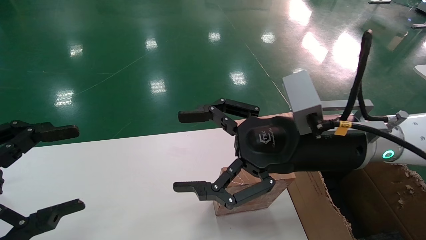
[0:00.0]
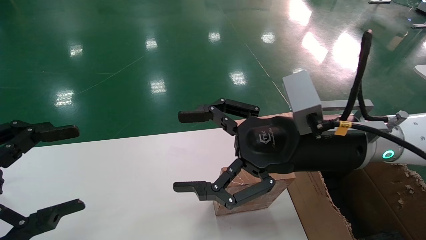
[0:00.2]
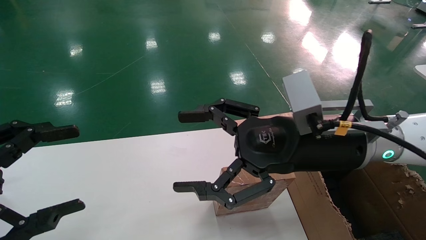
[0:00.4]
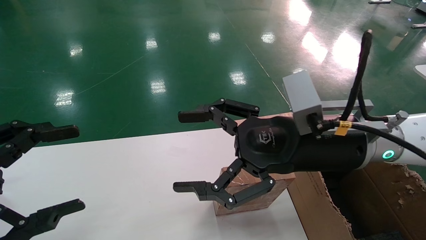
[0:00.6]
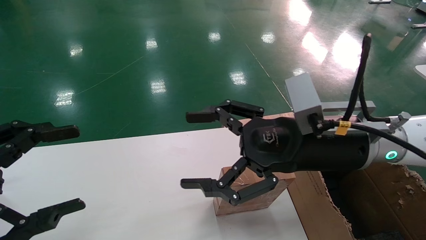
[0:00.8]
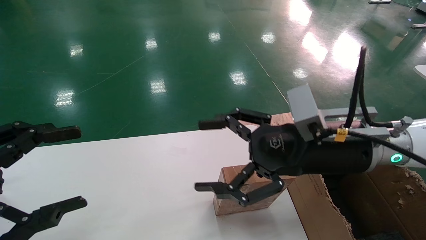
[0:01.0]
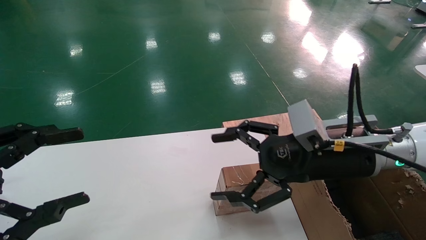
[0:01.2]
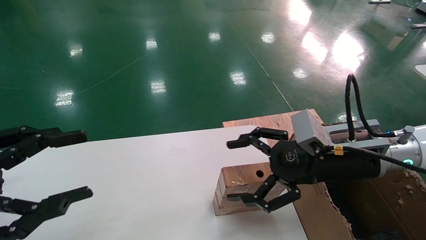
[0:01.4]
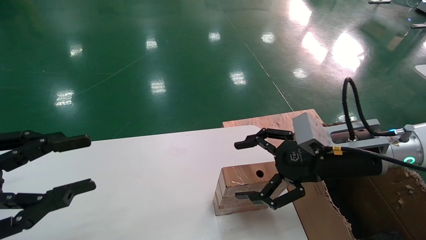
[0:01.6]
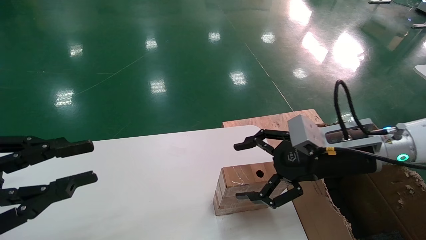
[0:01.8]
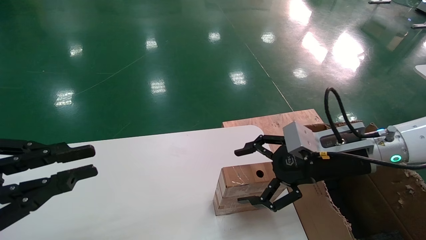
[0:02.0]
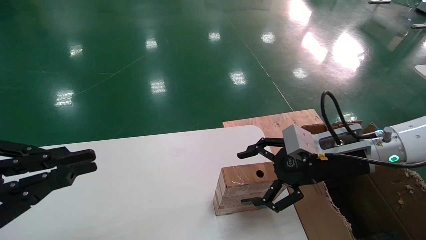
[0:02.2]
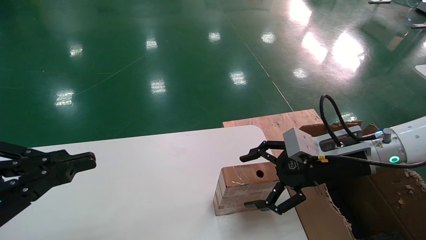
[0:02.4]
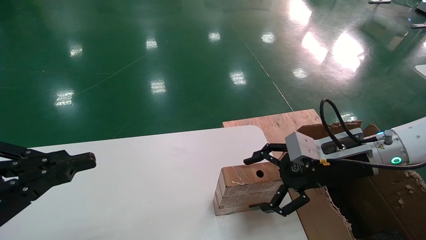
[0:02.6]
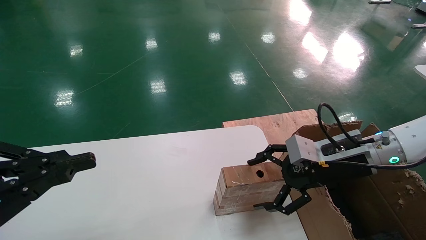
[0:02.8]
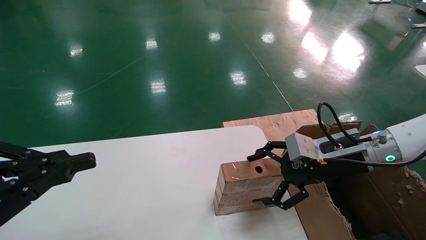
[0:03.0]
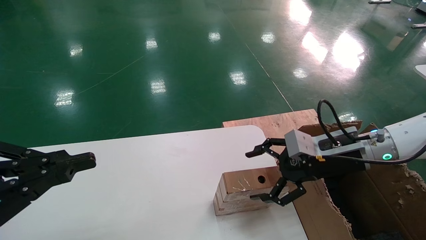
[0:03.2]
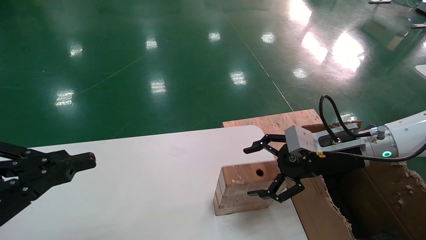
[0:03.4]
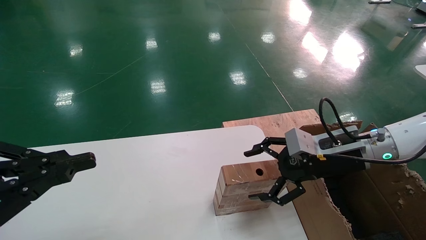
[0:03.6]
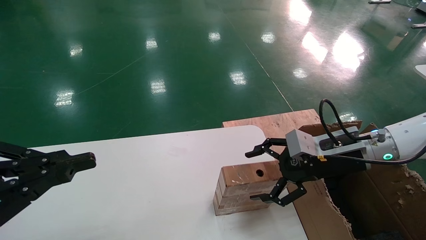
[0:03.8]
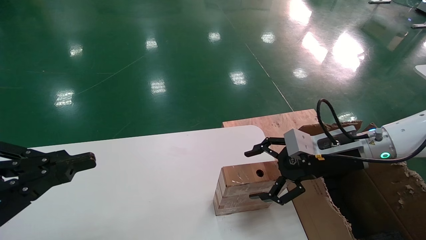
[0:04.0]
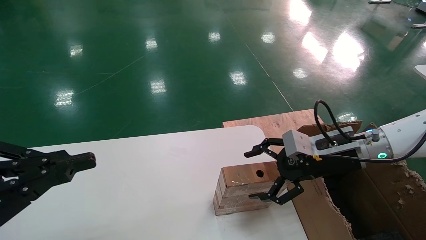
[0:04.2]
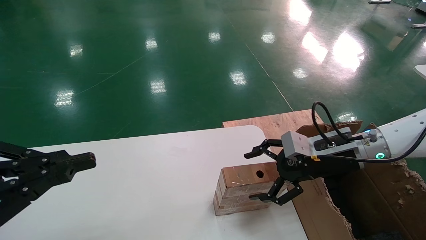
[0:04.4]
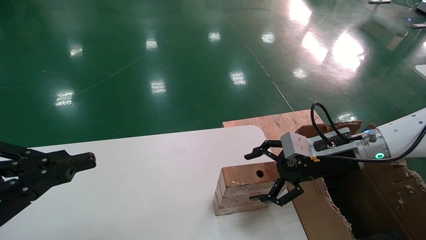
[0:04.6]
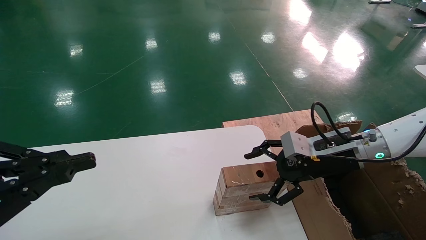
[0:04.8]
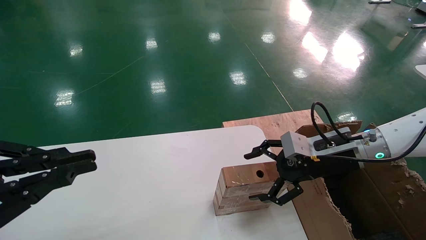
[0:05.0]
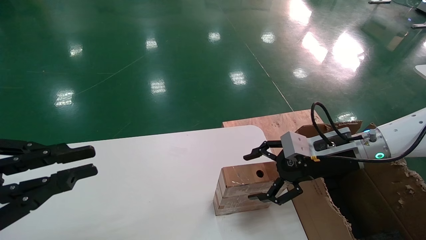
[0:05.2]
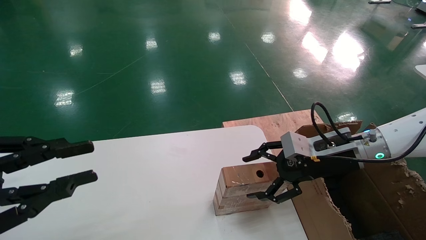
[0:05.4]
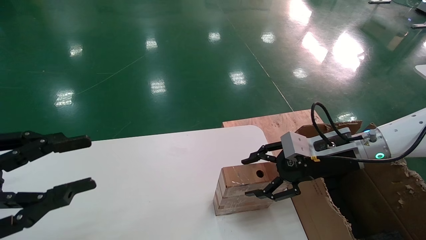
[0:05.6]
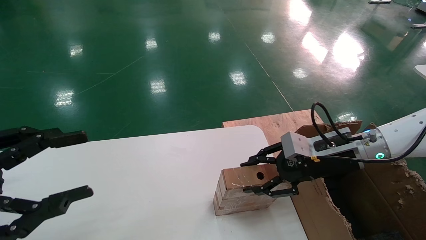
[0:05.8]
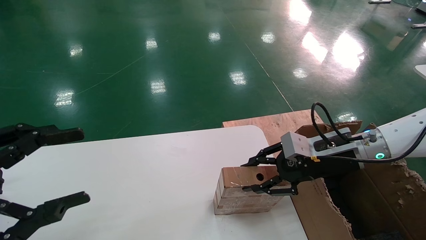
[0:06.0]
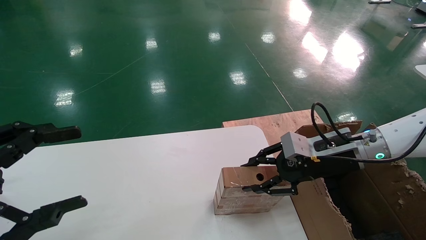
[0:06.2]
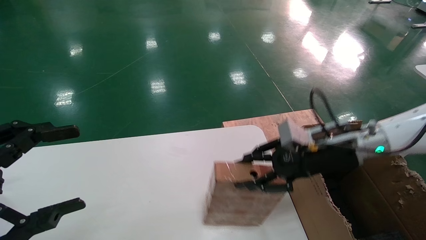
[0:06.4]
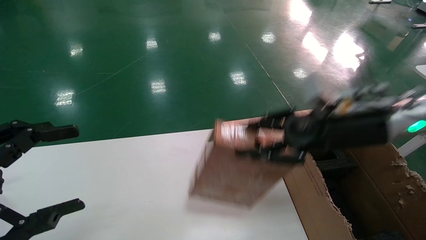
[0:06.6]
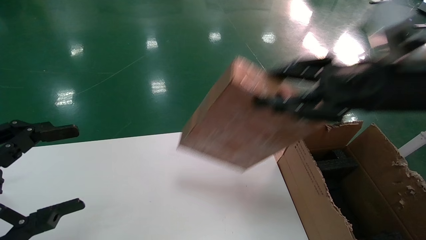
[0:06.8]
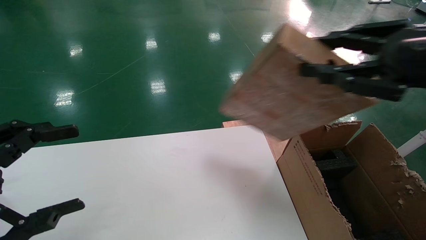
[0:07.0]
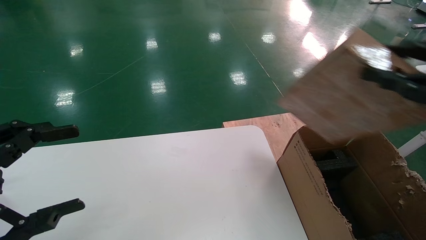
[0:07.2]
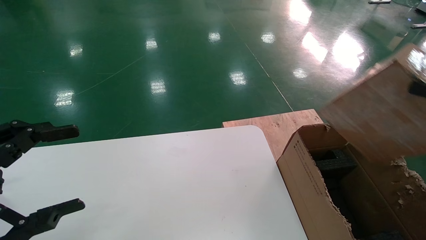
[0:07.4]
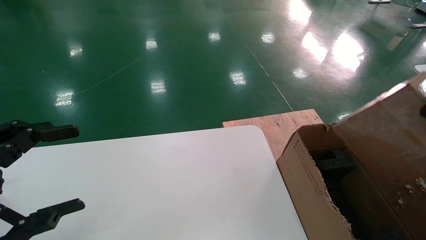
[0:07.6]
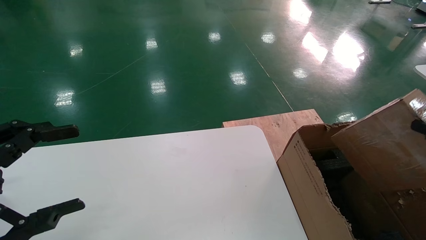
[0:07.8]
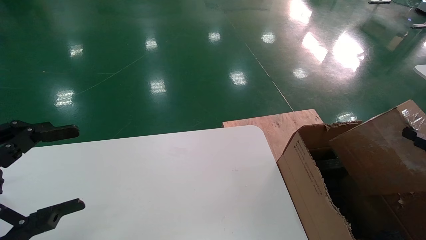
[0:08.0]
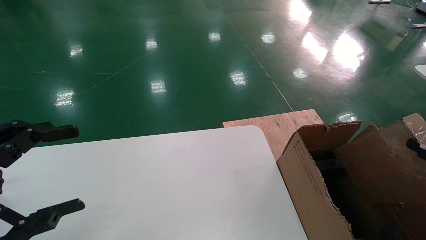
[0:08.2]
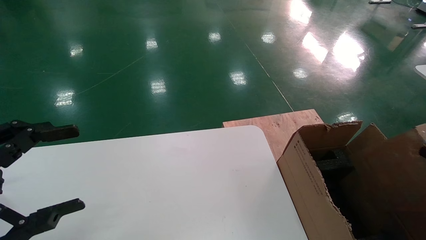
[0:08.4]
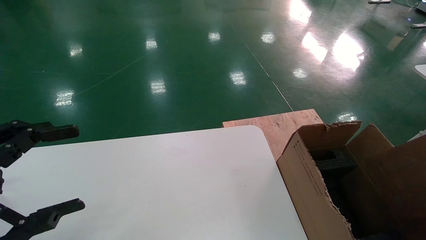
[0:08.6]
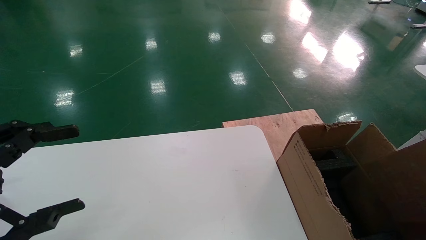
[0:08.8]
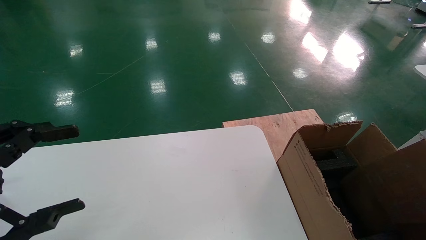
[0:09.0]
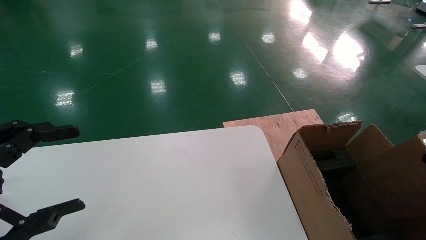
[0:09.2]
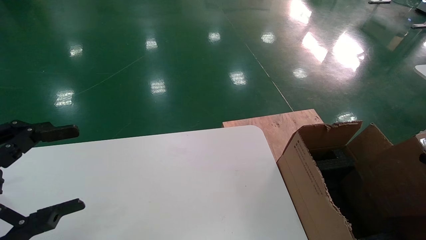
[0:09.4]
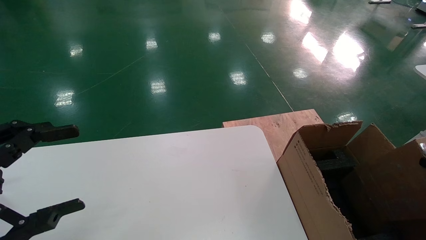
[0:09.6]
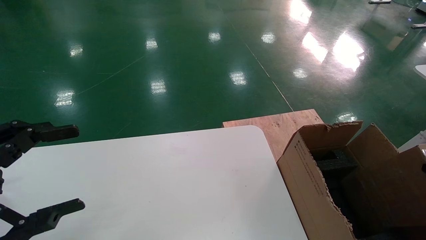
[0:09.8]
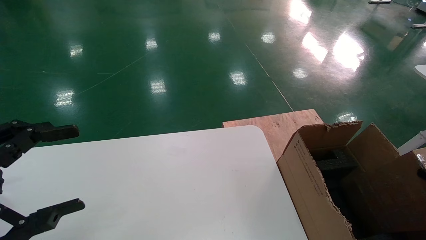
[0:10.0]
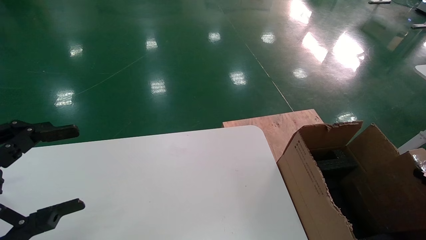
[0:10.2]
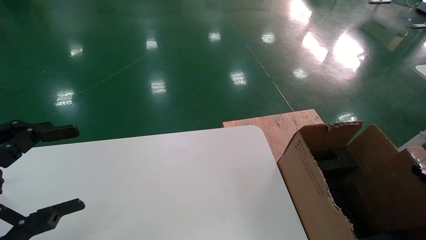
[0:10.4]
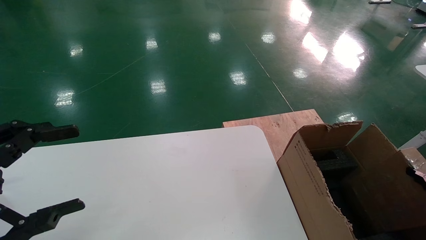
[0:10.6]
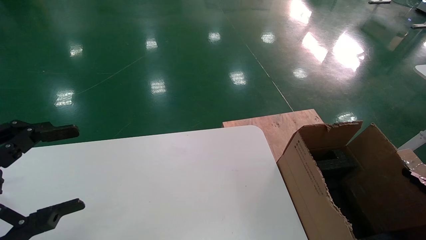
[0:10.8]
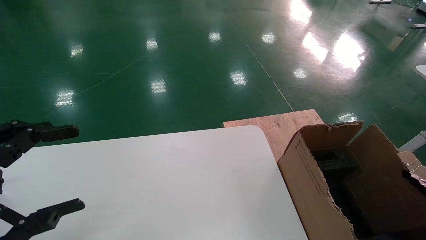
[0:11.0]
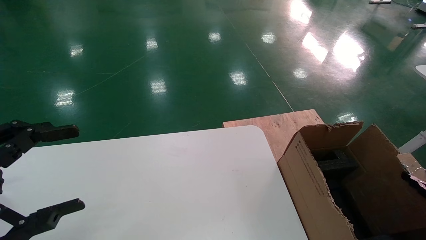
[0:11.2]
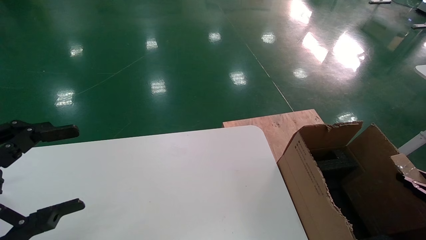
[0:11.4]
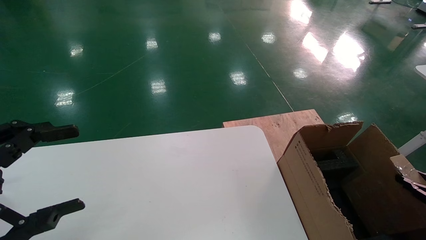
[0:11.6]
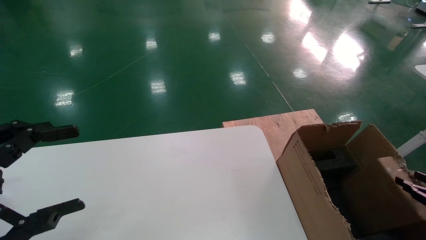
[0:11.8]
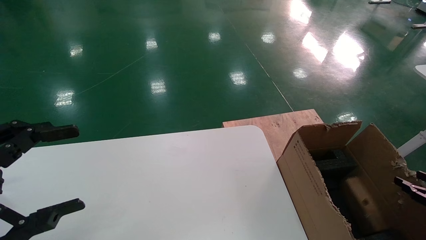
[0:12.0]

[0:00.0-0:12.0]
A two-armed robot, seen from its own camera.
Task of the whole recording: put the box on the table into the big box.
Step, 0:01.4 to 0:06.0: Pick up the mouse and the power cord paper box.
0:00.0 to 0:01.6: The right gripper moves to the right, some 10 cm; the left gripper closes up.
0:01.6 to 0:03.0: The right gripper moves approximately 5 cm, while the left gripper closes up.
0:03.0 to 0:04.4: The grippers stay close to where they were, moving slightly.
0:04.4 to 0:06.0: The left gripper opens its fingers, while the right gripper closes up.
0:06.0 to 0:07.6: The right gripper goes approximately 30 cm backward and to the right.
0:07.6 to 0:09.0: The right gripper moves downward and to the right, roughly 15 cm.
0:09.0 to 0:10.4: The right gripper changes place by some 5 cm.
0:10.4 to 0:12.0: There are only small adjustments of the grippers.

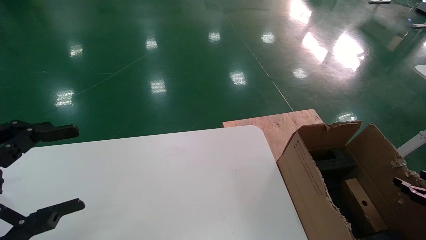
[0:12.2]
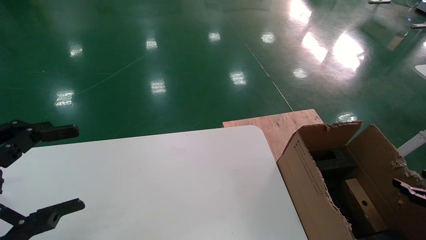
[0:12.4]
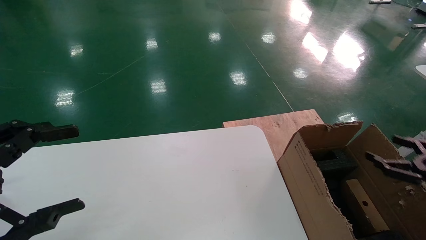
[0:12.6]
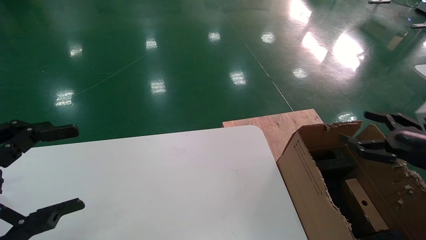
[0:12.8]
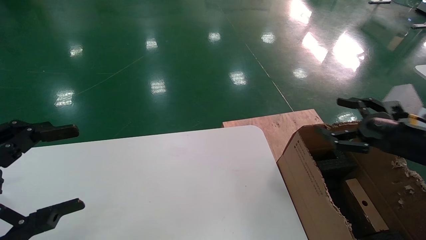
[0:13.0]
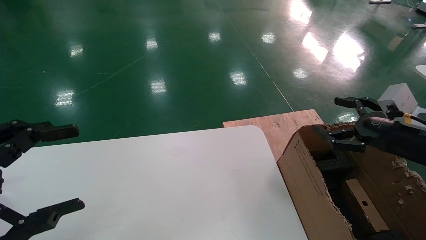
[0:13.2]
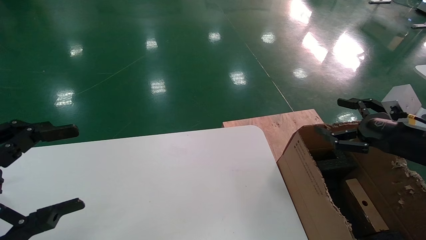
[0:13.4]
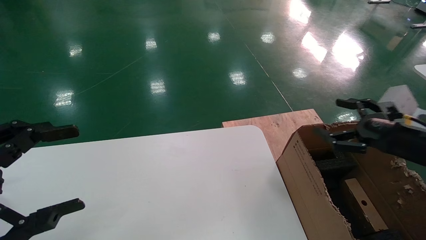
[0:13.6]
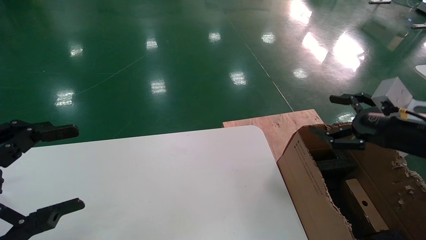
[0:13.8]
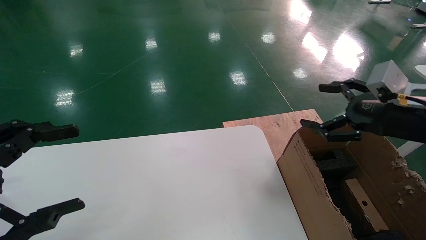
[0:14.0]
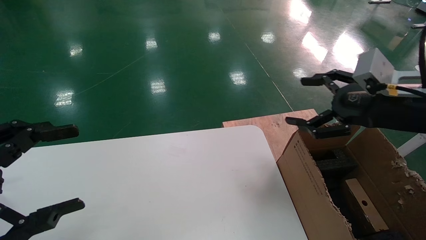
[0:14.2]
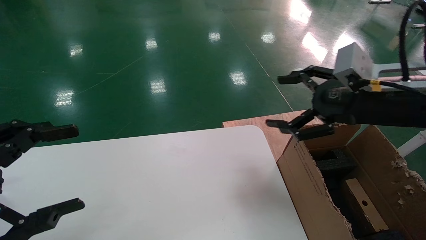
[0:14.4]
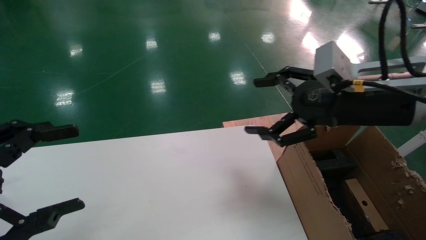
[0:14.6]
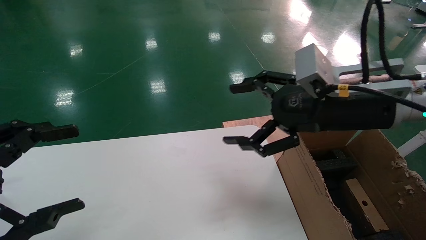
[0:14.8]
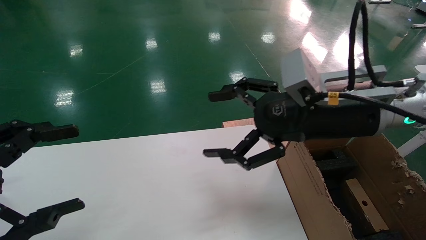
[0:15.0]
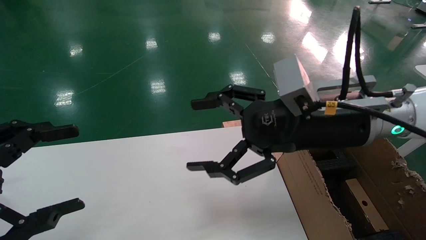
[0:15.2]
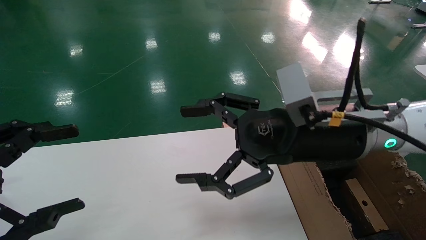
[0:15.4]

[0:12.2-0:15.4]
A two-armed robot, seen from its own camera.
Task of the whole recording: put the box on the table into the big box.
0:12.2 to 0:13.8: The right gripper heads upward, to the left and forward, covering approximately 25 cm, and opens.
0:13.8 to 0:15.4: The right gripper is displaced to the left by approximately 20 cm.
